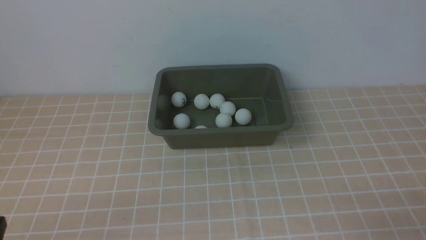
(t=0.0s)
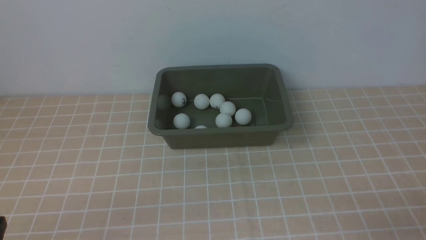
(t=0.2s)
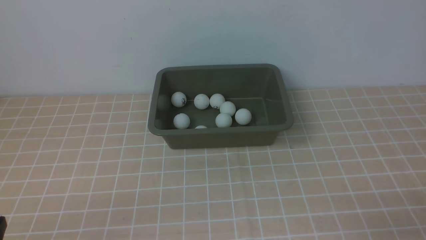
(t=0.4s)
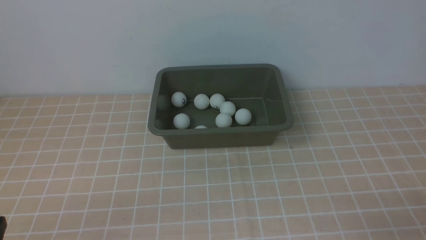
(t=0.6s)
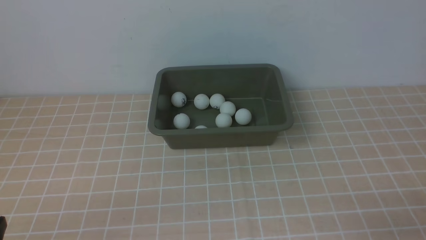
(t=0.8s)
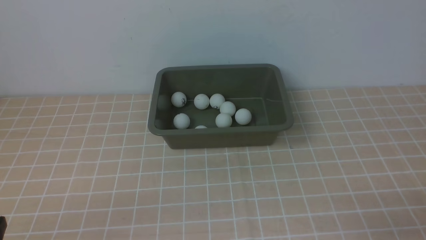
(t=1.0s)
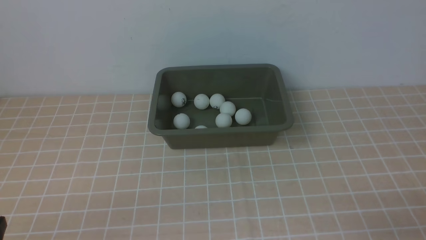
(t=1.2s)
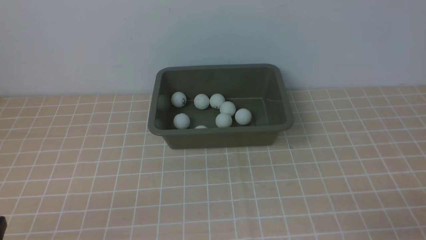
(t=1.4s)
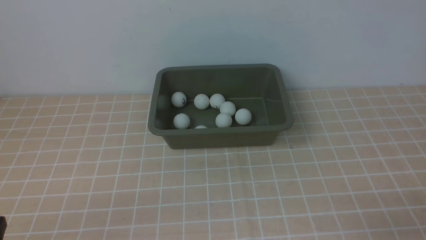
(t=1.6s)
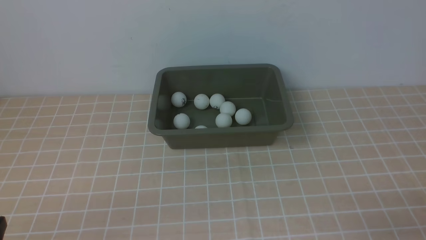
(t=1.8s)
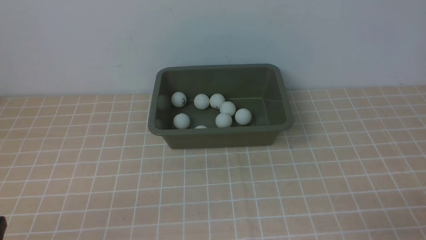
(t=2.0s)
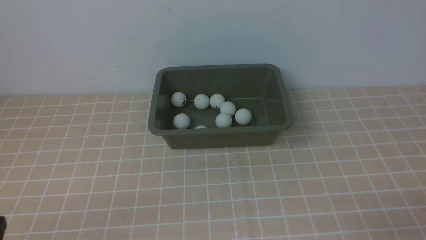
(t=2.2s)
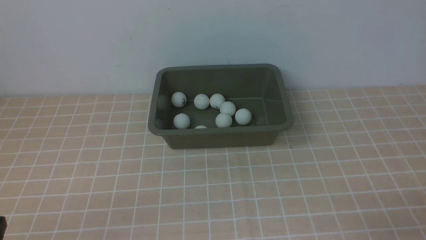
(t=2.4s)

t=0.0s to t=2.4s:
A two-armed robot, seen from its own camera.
t=1.2s to t=2.4s: Both grippers stay put.
